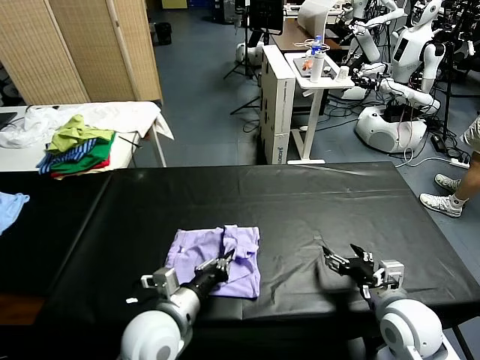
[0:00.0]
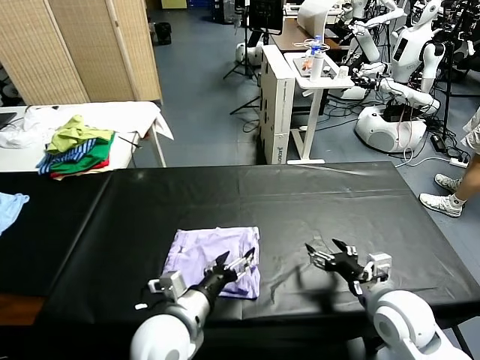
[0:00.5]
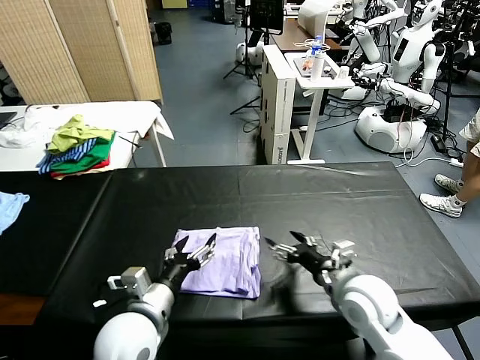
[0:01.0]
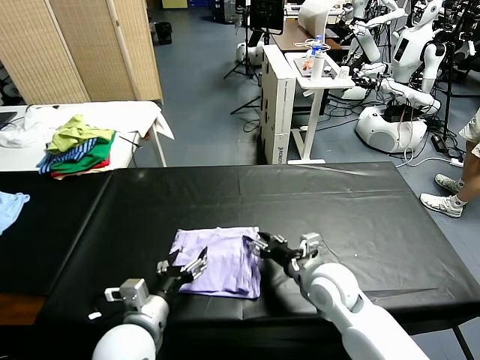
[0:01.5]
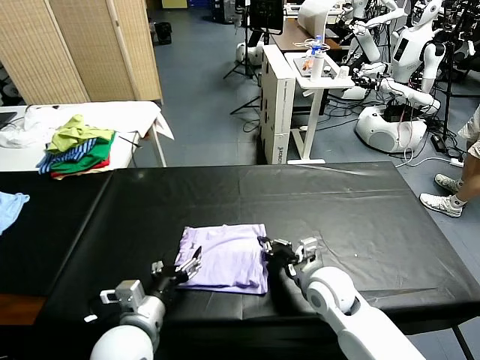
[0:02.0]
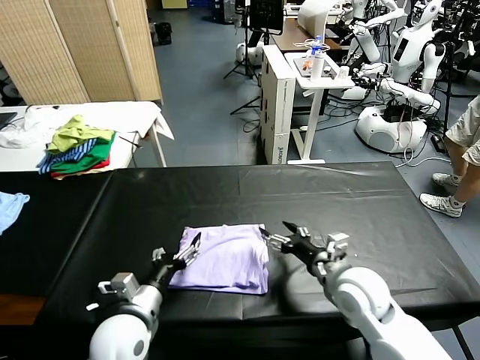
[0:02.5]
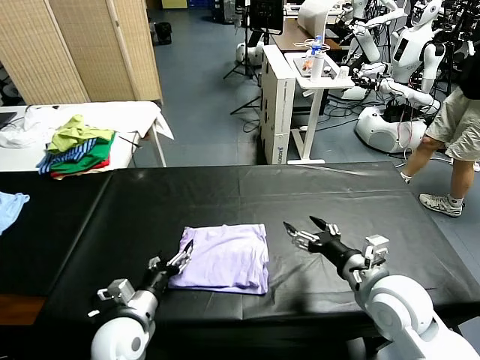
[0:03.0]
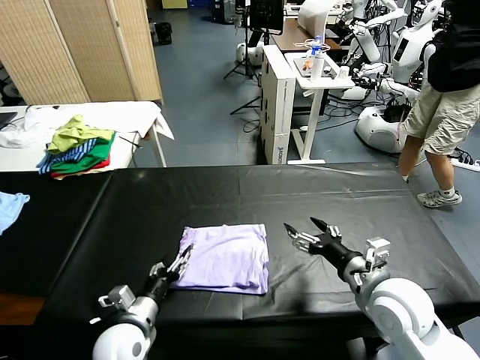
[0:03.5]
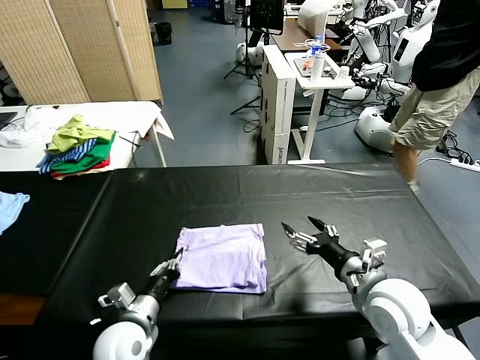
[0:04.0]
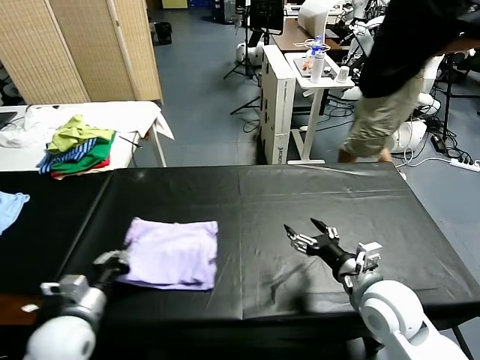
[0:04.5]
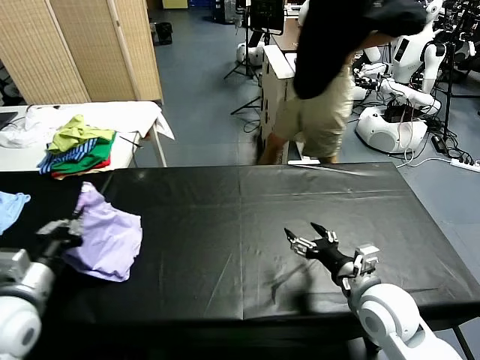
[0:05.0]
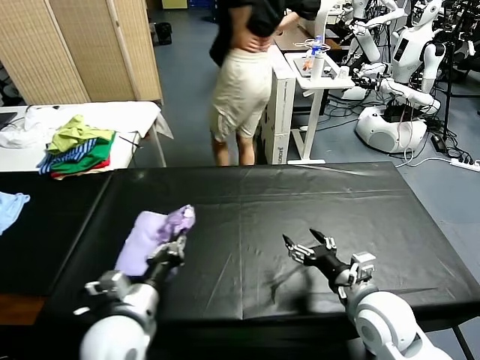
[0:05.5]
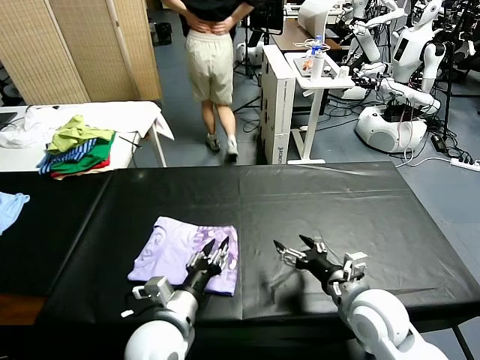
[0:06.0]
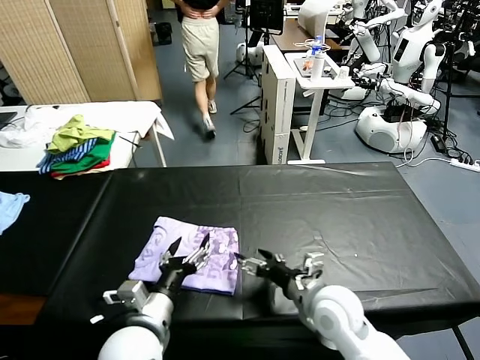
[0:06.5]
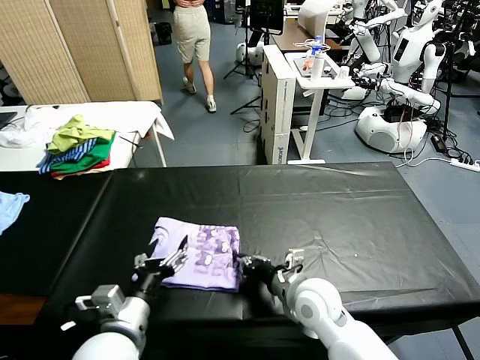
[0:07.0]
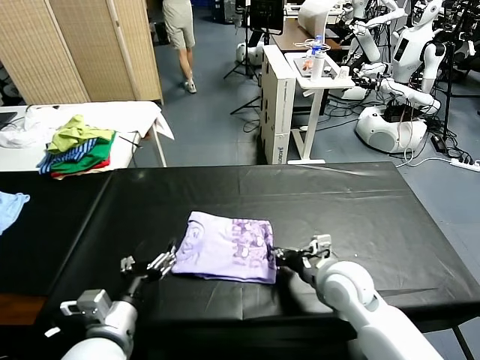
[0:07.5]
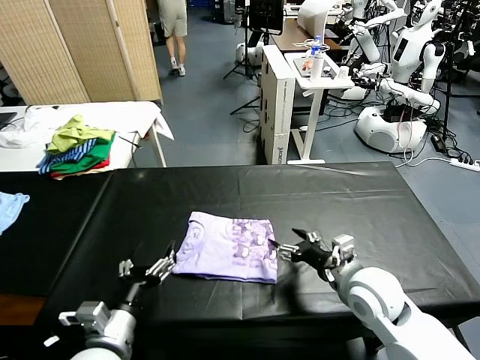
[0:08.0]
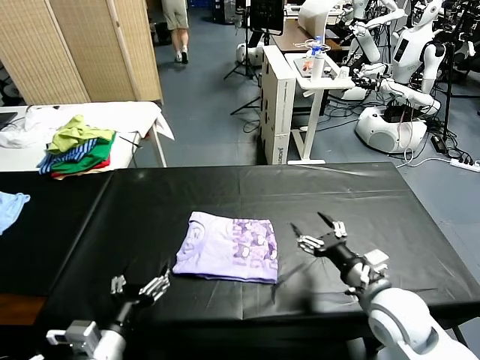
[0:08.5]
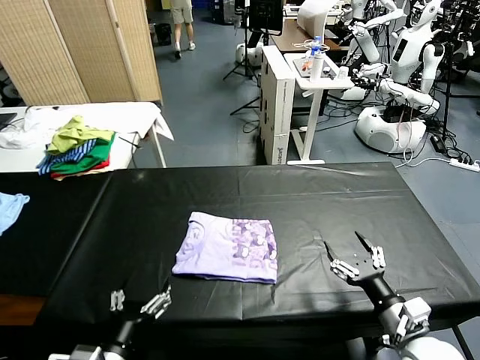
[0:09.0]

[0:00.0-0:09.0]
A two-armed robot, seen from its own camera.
Task of the whole recording: fold and organize the clothes.
Step, 0:01.0 to 0:06.0: Flip the folded clothes over with left gripper.
Step, 0:06.5 to 0:07.5: Drag the clothes to the center of the table.
0:00.0 to 0:02.0: The right gripper shifts about 15 cm to the left and forward, and closes its fingers. The left gripper moves approximately 5 cm, and opens its fingers.
0:02.0 to 0:04.5: The right gripper is displaced to the right, upward and backward by about 10 cm, and opens its fingers, while the left gripper shifts about 10 cm to the left, and closes its fingers.
0:04.5 to 0:07.0: The right gripper travels to the left and downward by roughly 15 cm, and closes up, while the left gripper goes left and right, some 25 cm each way, reversing 2 times, and opens its fingers.
0:07.0 to 0:09.0: The left gripper heads backward, covering approximately 10 cm; the right gripper travels to the right and backward by some 20 cm, and opens up.
